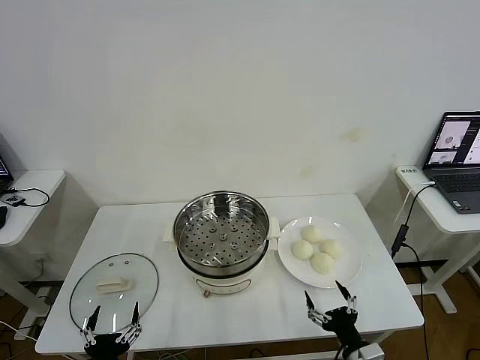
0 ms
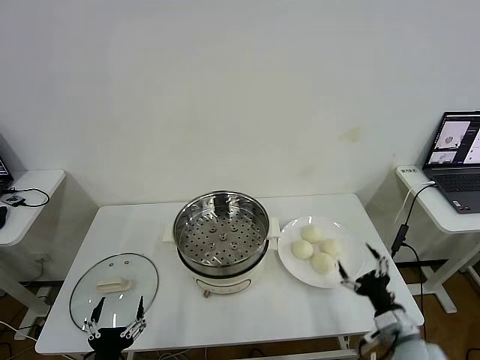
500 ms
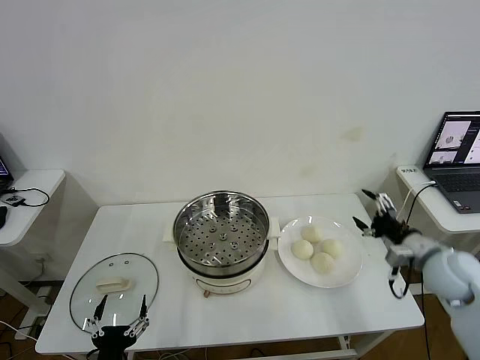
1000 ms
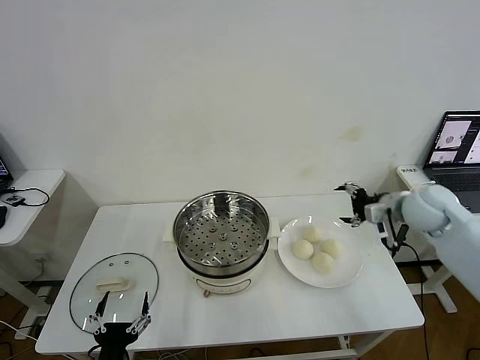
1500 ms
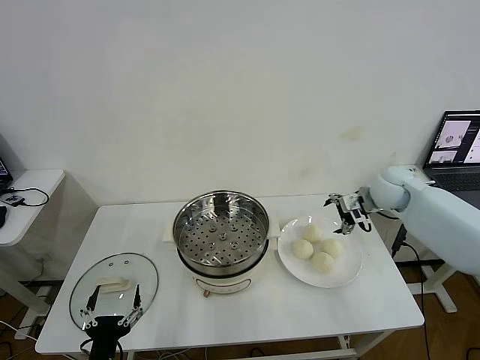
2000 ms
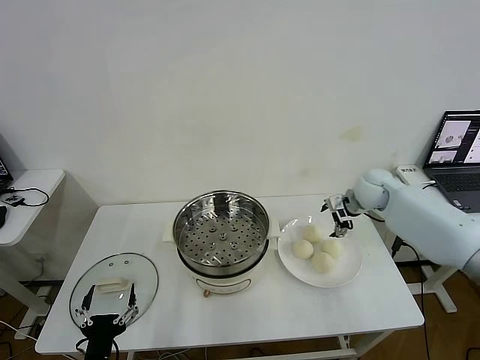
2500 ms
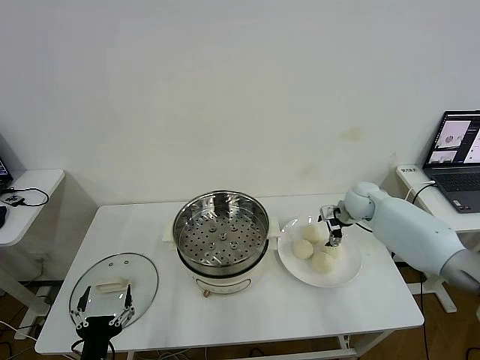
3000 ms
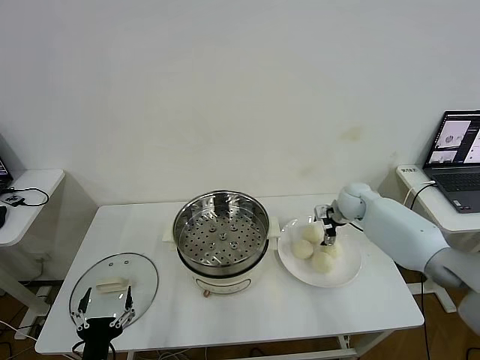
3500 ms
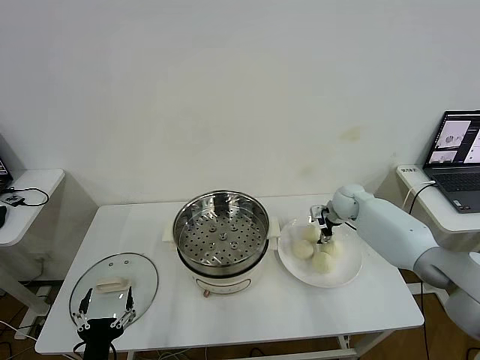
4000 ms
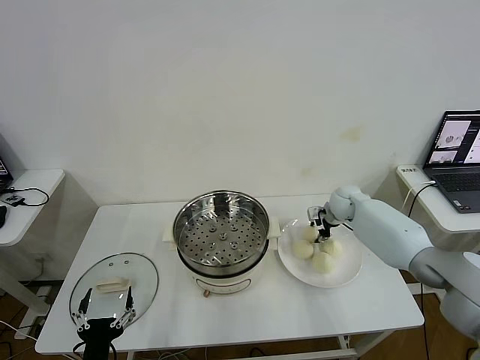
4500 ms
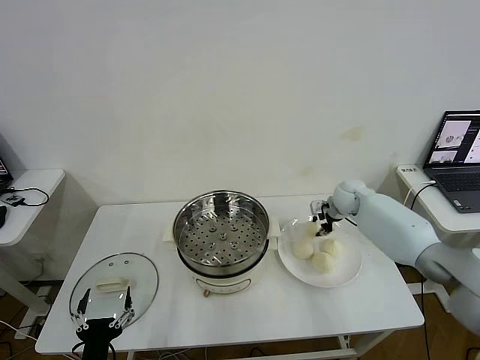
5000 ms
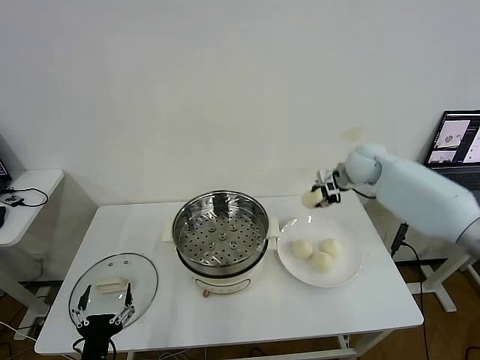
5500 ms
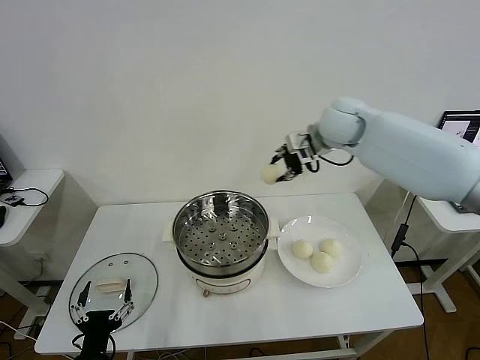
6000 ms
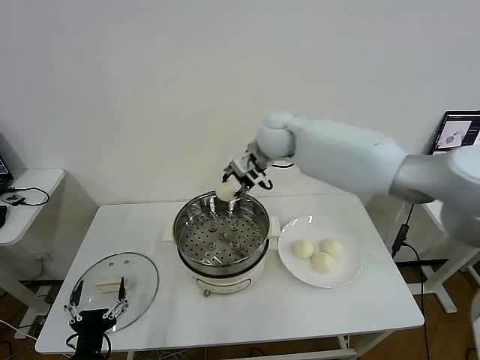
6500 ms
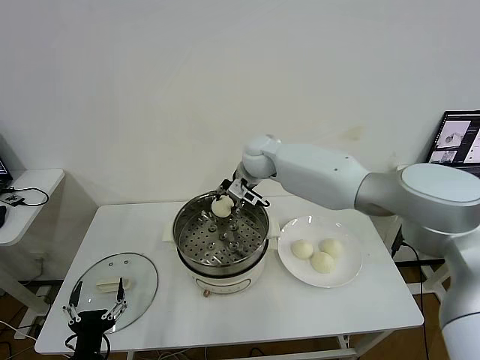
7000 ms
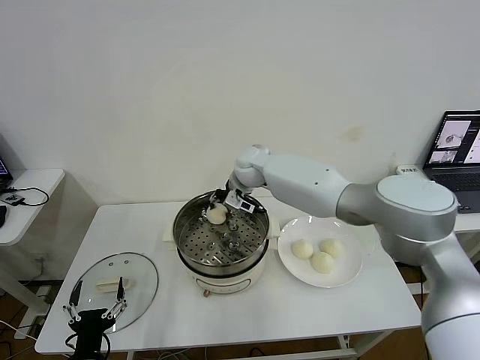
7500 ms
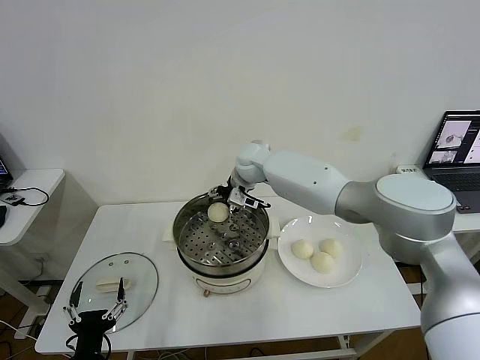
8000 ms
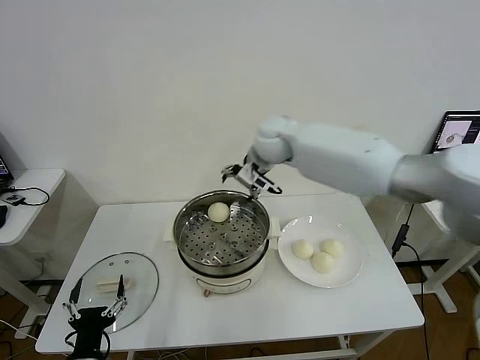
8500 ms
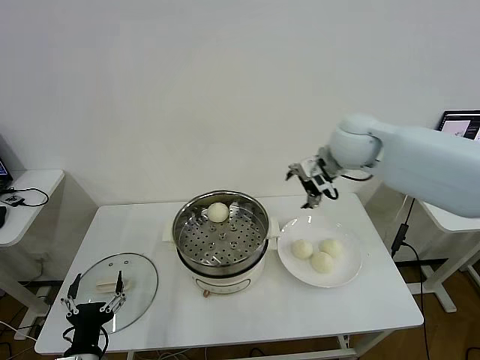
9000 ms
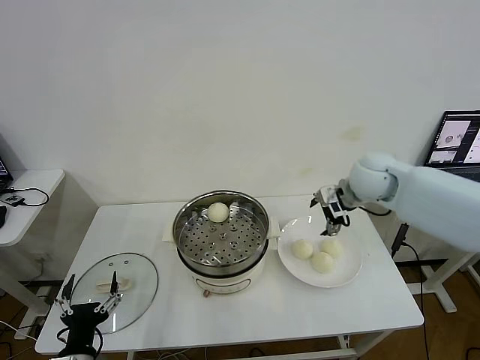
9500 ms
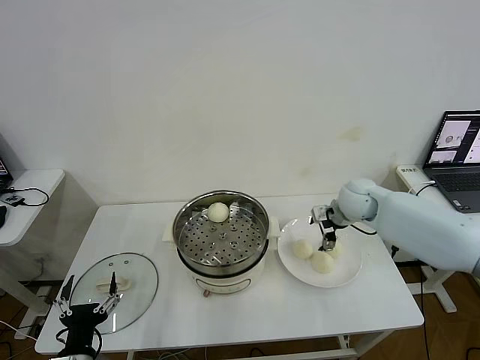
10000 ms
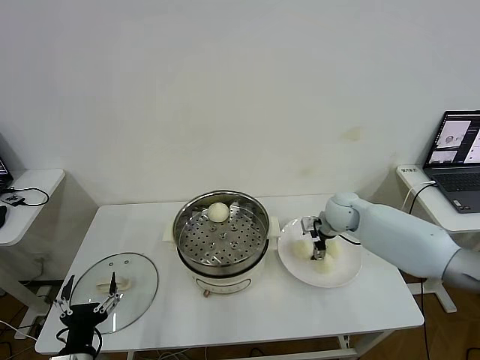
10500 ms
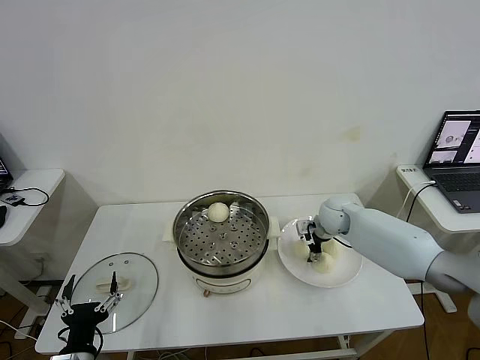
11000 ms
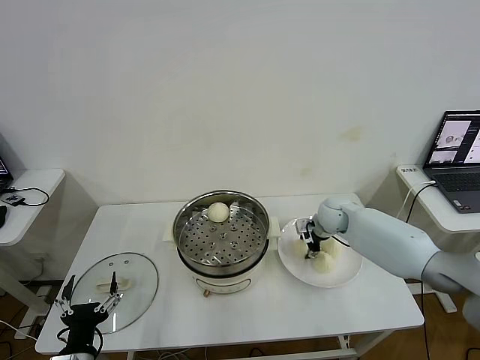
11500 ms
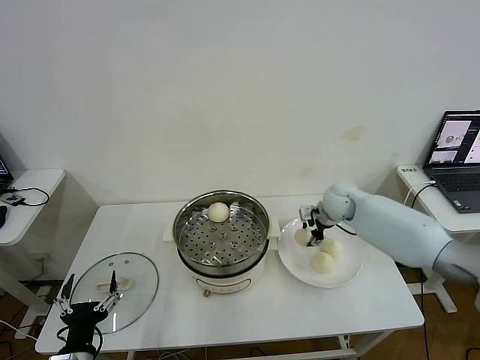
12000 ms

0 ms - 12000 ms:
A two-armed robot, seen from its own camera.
Step, 0 ms - 4500 ms: Grasp the baozi in the plate with right gripper.
Step, 5000 ms - 7500 ms: Place the baozi on the steamer with right gripper.
Step, 8000 ms - 11500 ms: Grasp the baozi in the plate with right gripper.
2000 ms - 4000 ms: The right gripper is displaced downward and forward by approximately 10 cm.
4000 ms - 6000 ms: The right gripper heads upward and to the left, covering approximately 30 cm, and closes up.
6000 ms - 8000 ms: The right gripper heads to the left and downward, covering about 20 cm, and opens its fingers.
8000 ms - 10000 ms: The right gripper moves to the right, some 25 cm.
10000 ms - 12000 ms: The right gripper closes its fingers.

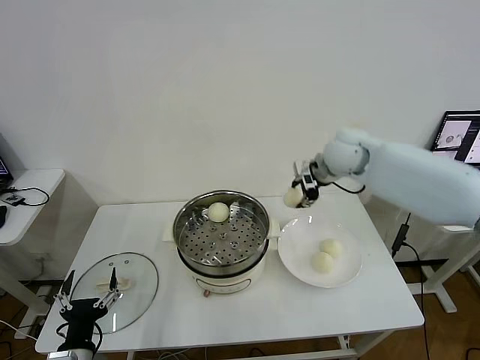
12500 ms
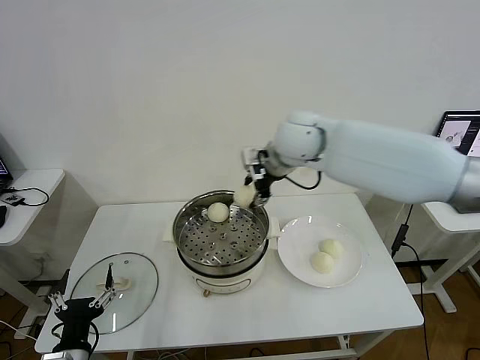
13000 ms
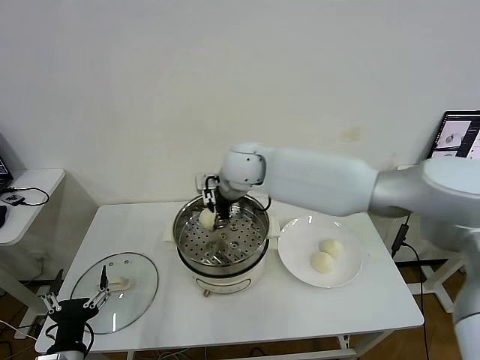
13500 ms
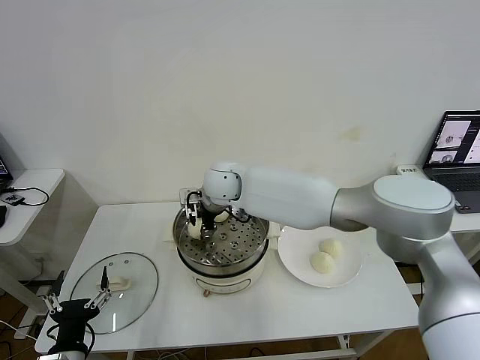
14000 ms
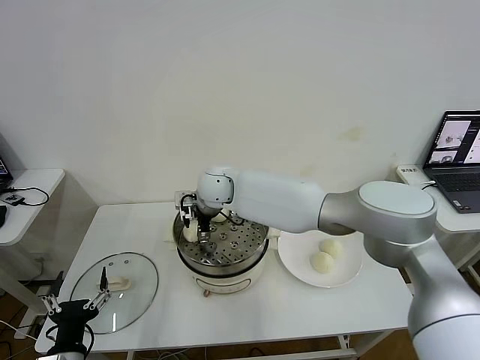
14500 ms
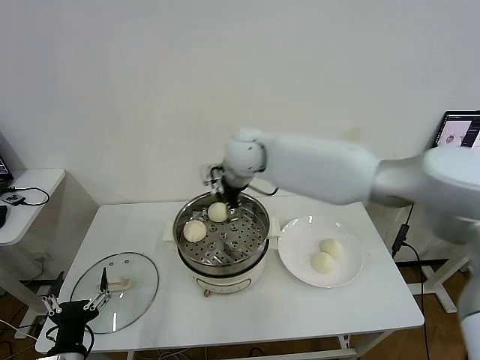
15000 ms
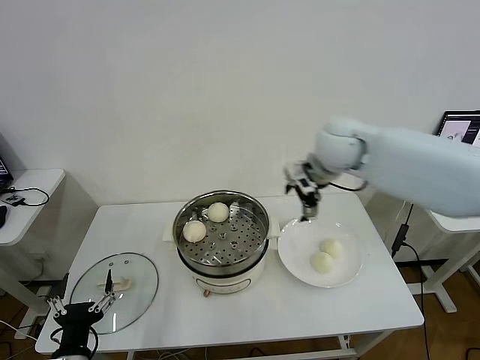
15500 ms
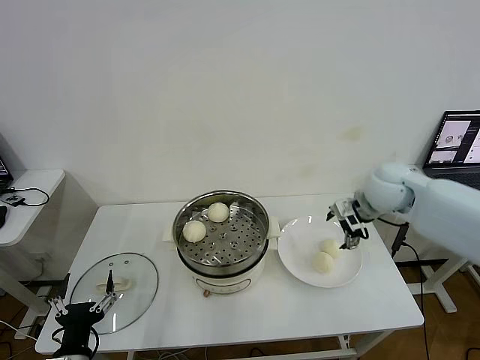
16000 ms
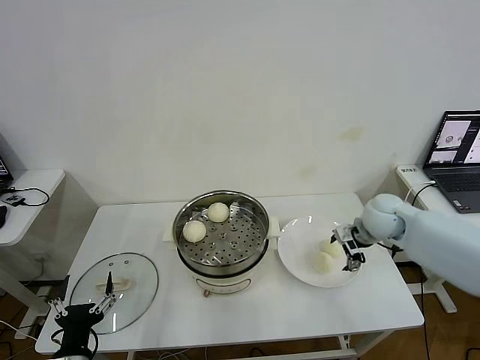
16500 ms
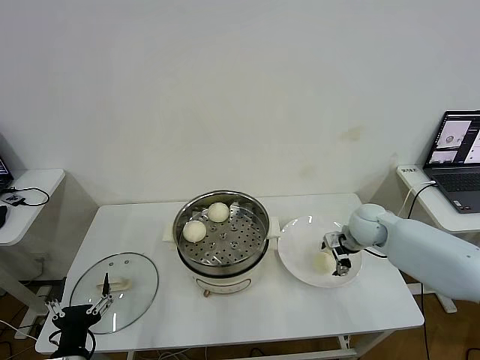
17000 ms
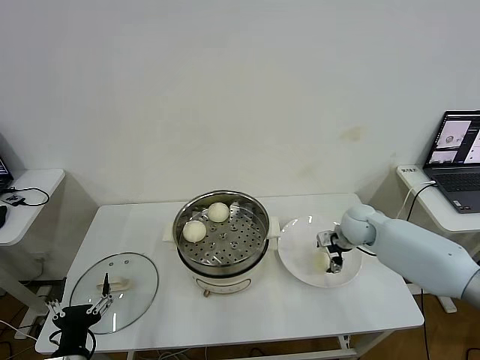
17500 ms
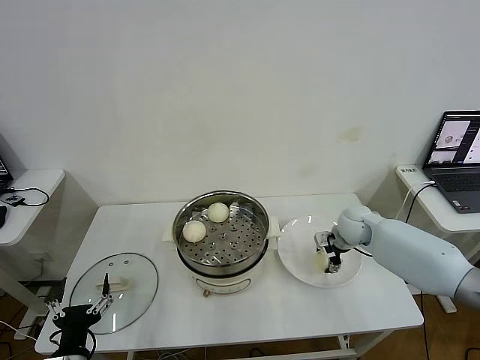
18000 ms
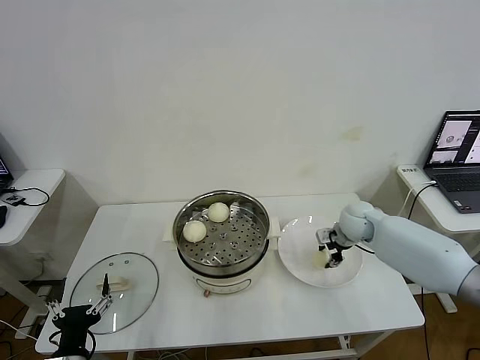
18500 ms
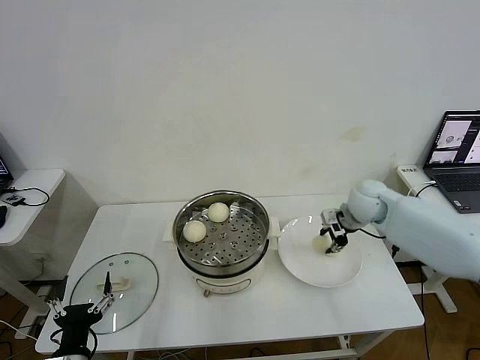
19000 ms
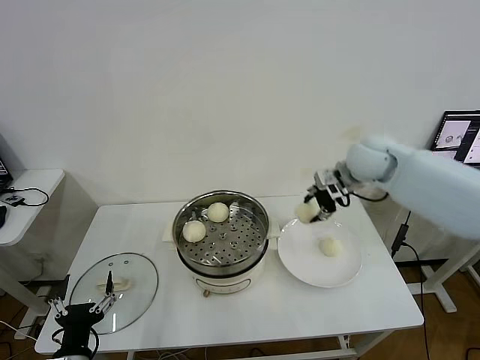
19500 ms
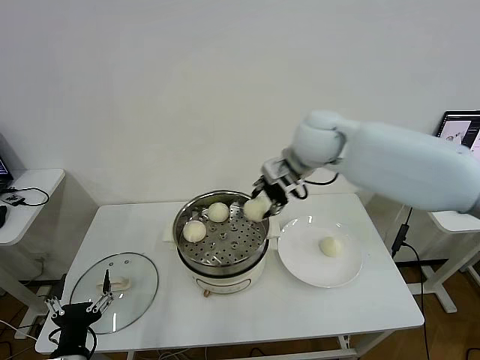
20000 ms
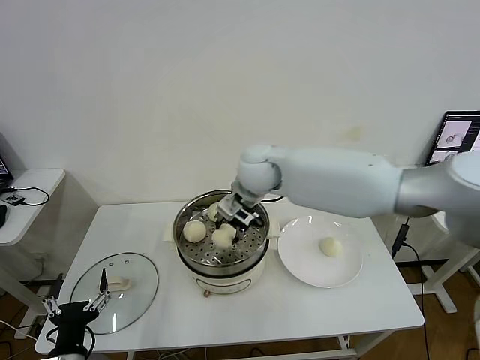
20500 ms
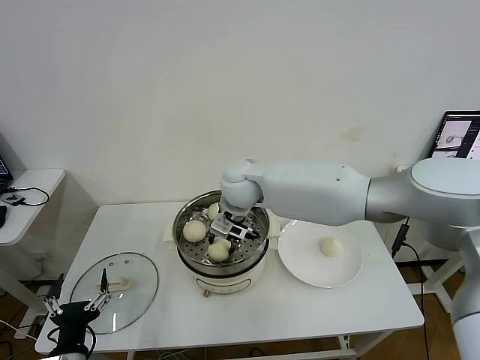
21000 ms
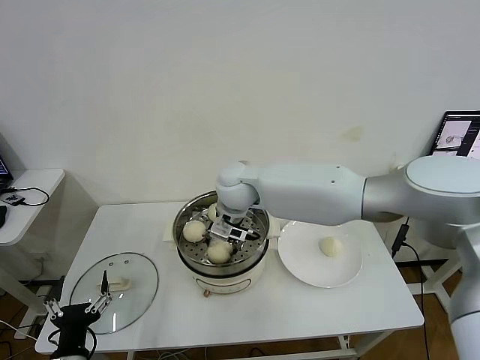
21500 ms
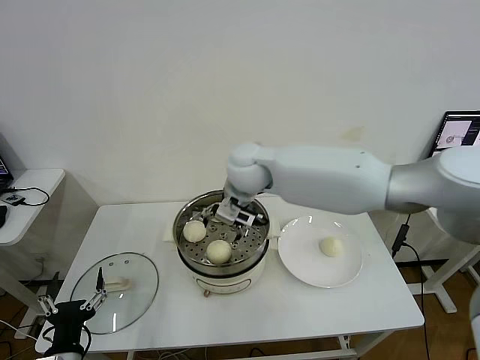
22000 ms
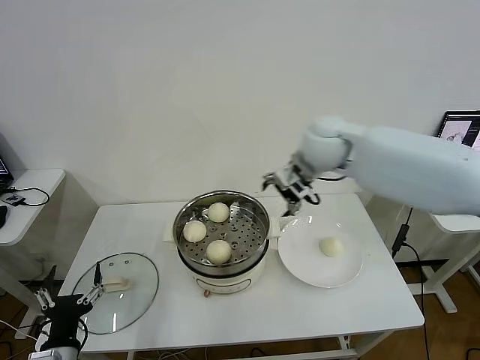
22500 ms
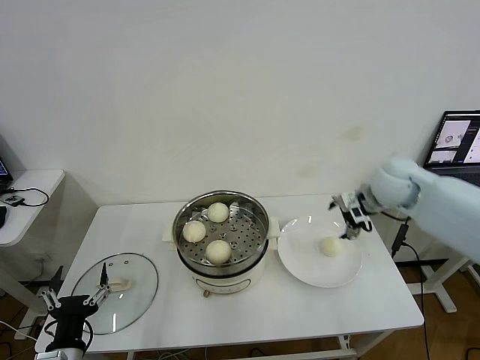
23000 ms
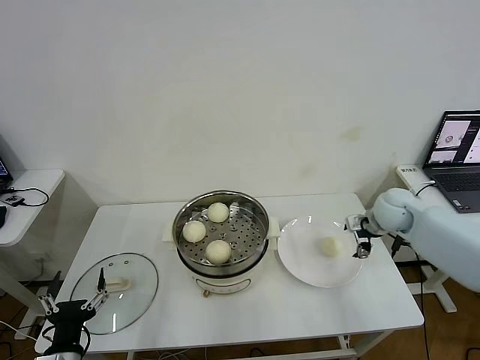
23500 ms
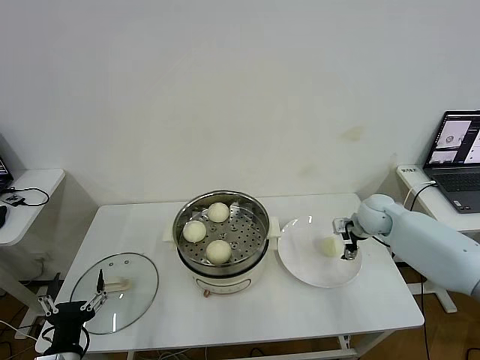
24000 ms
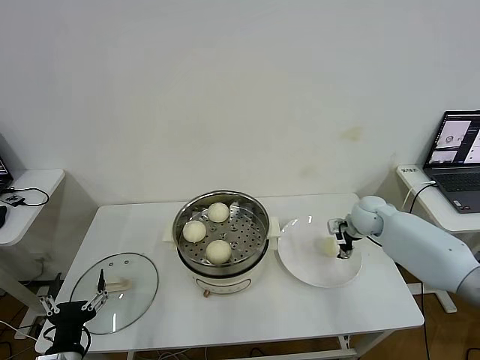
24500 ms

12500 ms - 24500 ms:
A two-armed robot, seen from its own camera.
Step, 12500 ms - 14500 ms: Place the baozi on the steamer with right gripper.
Step, 15000 ms - 18000 ms: Grasp the baozi in the plate with right gripper.
Step, 19000 ms - 21500 ms: Place the baozi on the steamer with right gripper.
12500 ms - 14500 ms: The right gripper travels to the left by about 25 cm, and opens.
14500 ms - 16500 ms: The right gripper moves to the right, about 40 cm.
16500 ms - 18500 ms: The right gripper shifts roughly 5 cm downward, and closes its fingers.
18500 ms - 20500 ms: The right gripper travels to the left and upward by approximately 30 cm.
20500 ms - 22500 ms: The right gripper moves to the right and upward, roughly 15 cm, and opens.
22500 ms - 24500 ms: The right gripper goes roughly 30 cm downward and to the right.

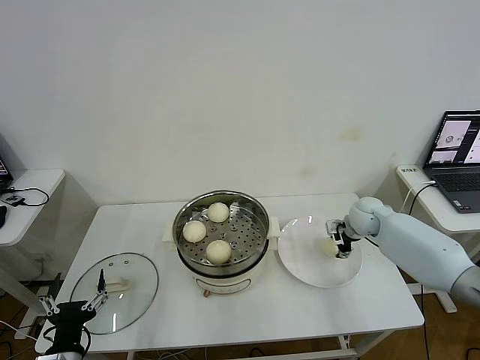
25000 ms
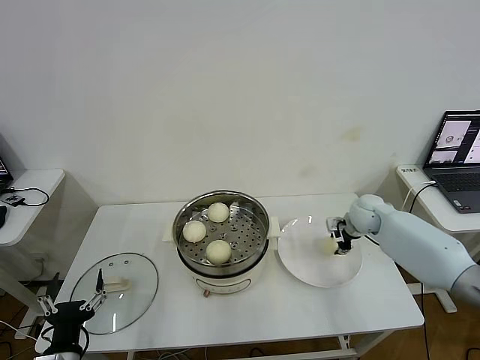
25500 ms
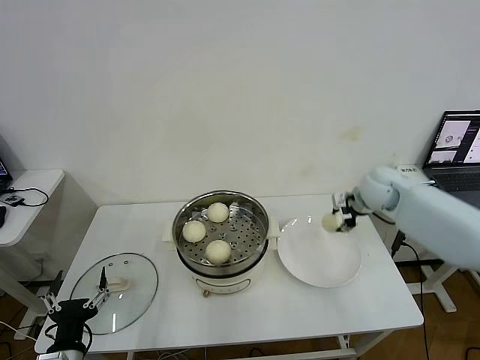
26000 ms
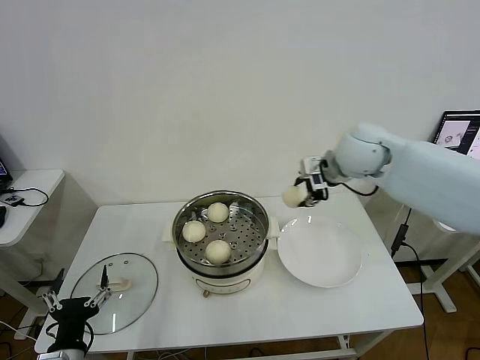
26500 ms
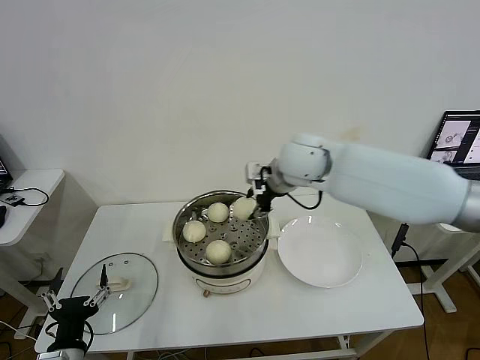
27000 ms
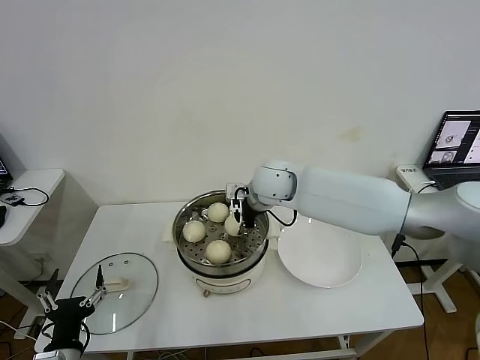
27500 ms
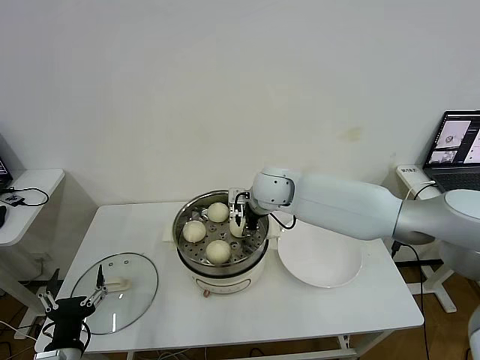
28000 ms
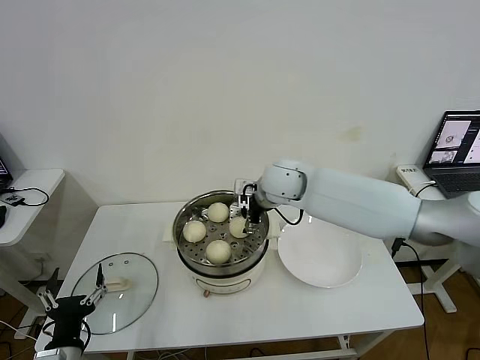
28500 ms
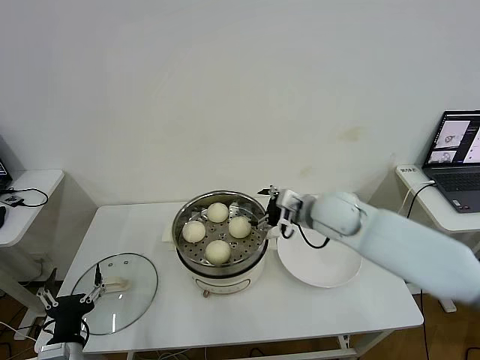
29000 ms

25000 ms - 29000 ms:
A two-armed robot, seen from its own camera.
Step, 26000 ms - 28000 ms: Place the baozi on the steamer with right gripper.
25000 ms - 27000 ms: The right gripper heads upward and to the left, covering some 30 cm.
27000 ms - 29000 ms: The right gripper is displaced downward and to the right by roughly 10 cm, and opens.
